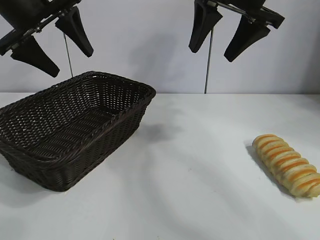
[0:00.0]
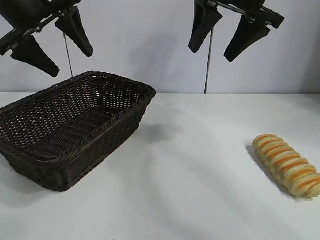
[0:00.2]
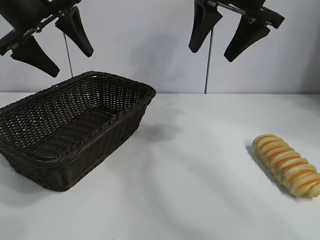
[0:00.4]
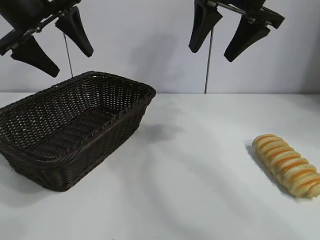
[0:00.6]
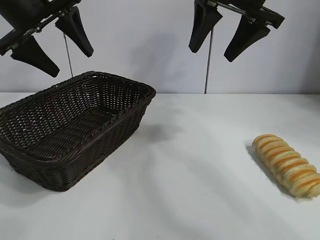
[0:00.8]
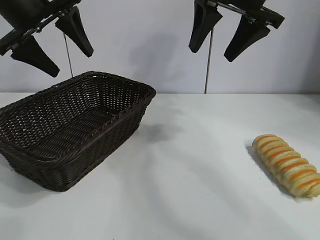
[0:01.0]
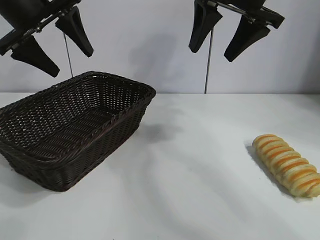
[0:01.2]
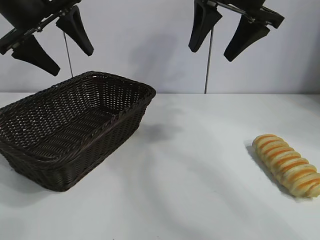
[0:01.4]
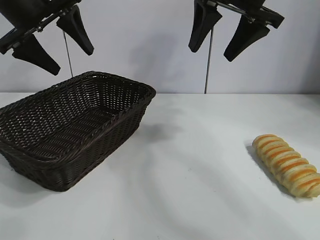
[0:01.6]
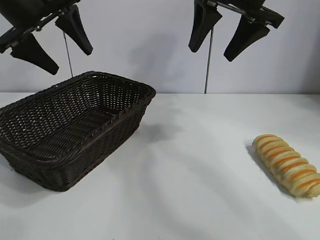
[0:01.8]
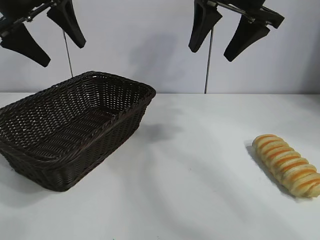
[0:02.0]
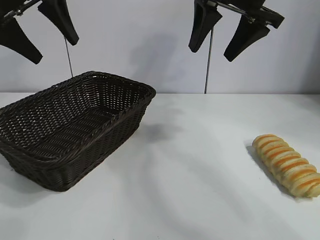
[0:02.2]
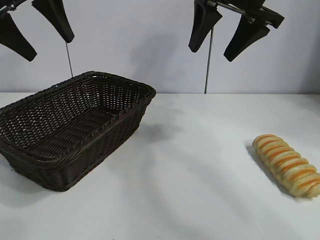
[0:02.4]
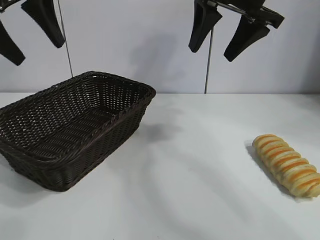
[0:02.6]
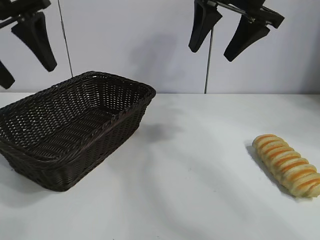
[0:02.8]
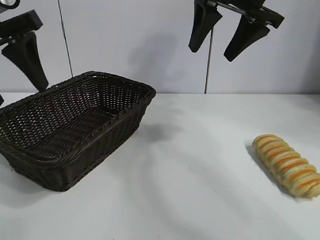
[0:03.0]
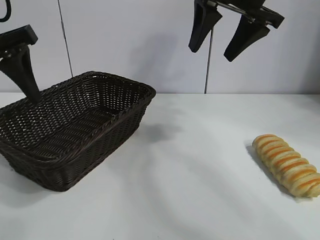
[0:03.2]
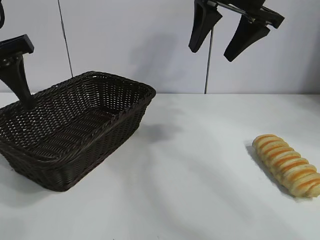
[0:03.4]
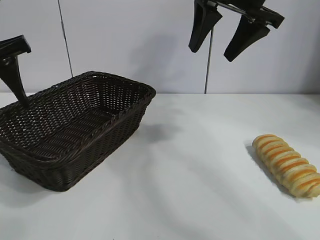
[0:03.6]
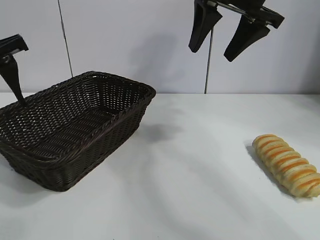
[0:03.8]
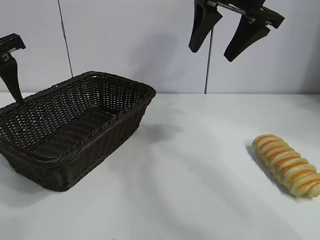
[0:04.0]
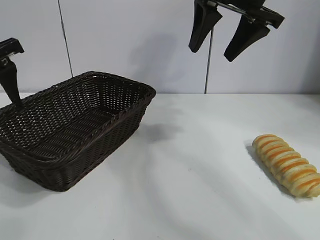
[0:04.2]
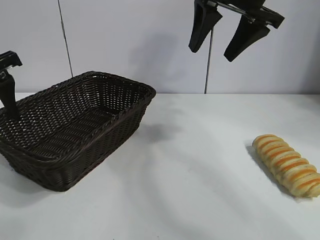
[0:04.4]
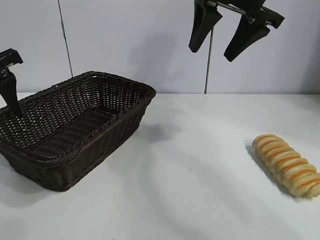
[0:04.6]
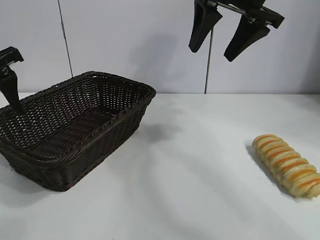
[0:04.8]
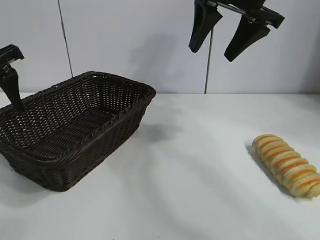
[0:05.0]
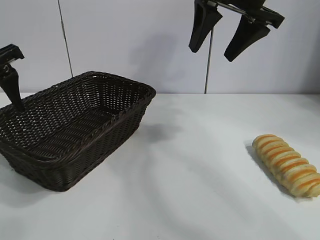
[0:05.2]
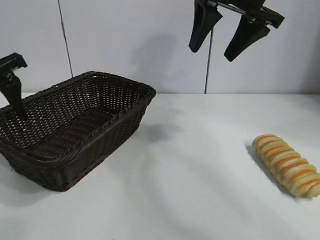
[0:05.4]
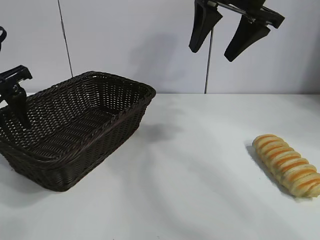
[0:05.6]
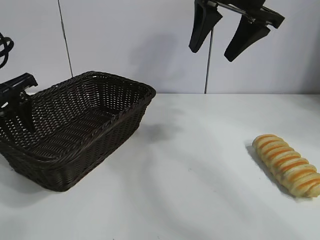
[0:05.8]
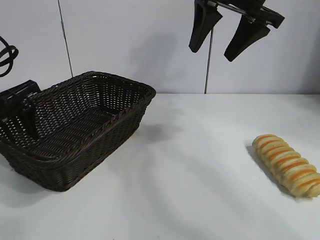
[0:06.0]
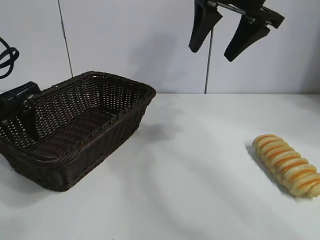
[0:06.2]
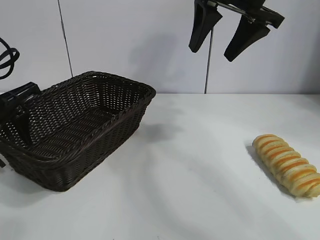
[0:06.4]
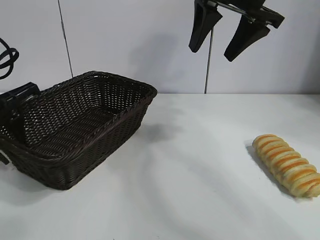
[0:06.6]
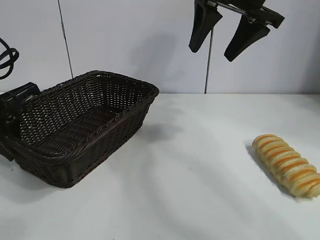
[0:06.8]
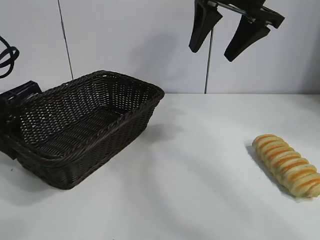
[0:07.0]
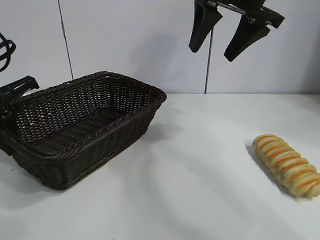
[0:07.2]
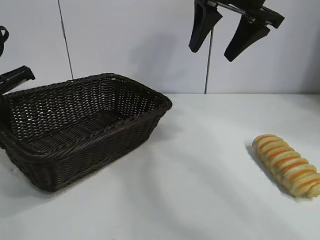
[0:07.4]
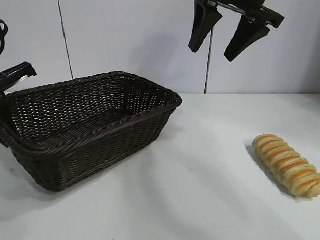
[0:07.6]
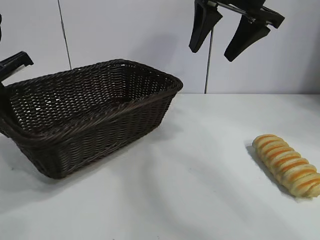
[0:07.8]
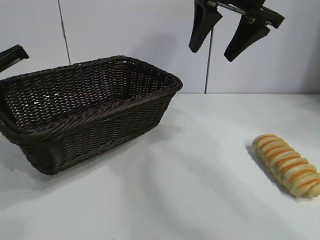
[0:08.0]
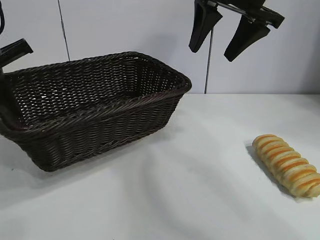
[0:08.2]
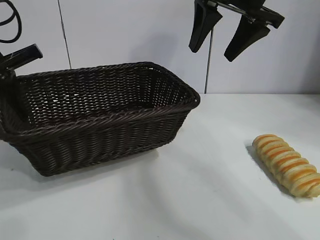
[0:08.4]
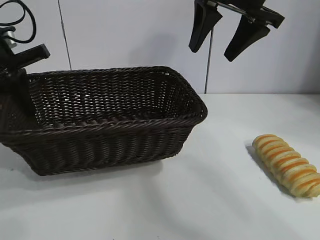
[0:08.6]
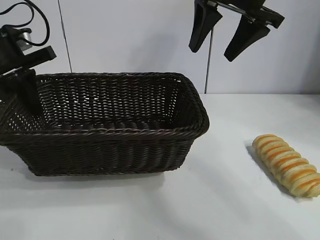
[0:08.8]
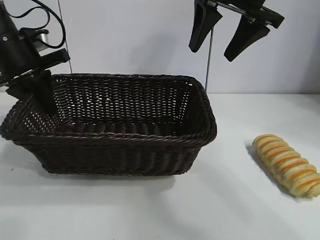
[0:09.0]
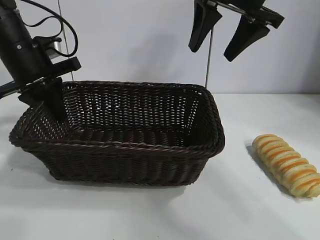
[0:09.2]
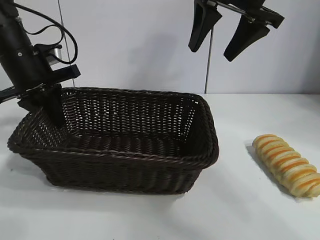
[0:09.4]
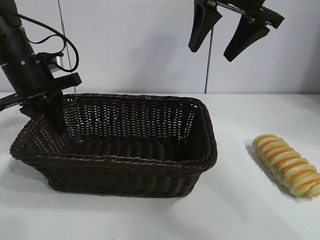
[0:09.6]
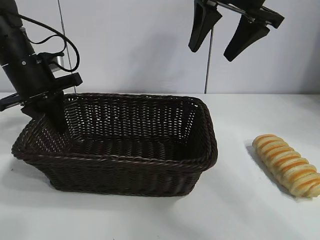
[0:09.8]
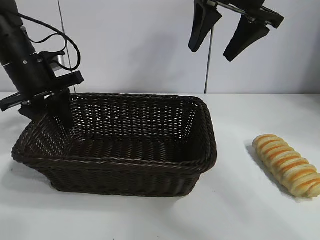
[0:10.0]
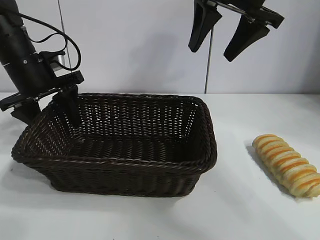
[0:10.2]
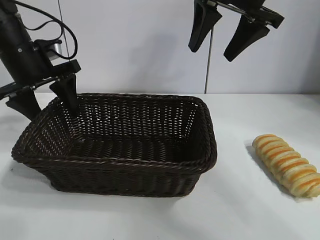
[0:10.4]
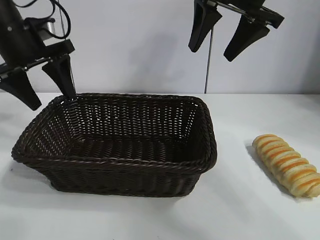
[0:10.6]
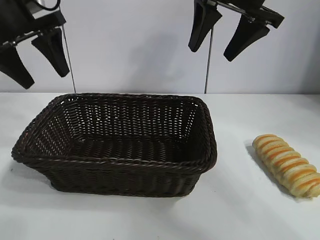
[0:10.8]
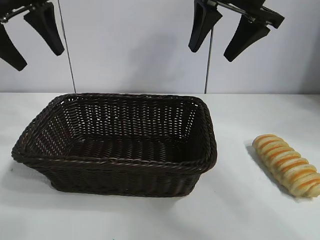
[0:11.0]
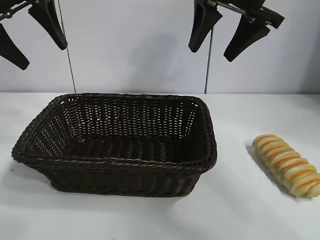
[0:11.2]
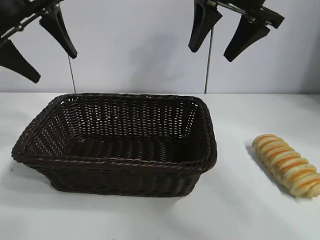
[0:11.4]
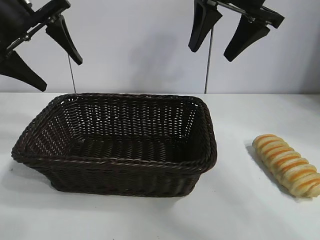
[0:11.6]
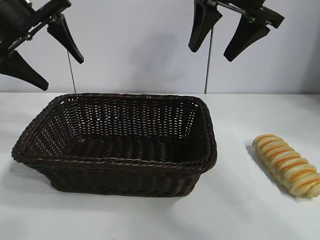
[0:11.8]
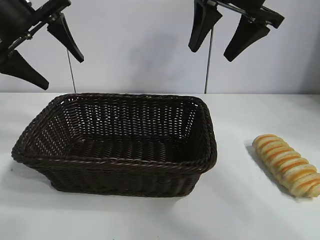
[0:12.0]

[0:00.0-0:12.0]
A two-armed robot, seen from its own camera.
Task of the whole recording: pick up the long bread and put it into the basket.
Step, 0:01.8 to 0:06.8: Grasp the basket with the left gripper.
Step, 0:07.0 to 0:10.2: Place the basket in the center of the table with the left gripper.

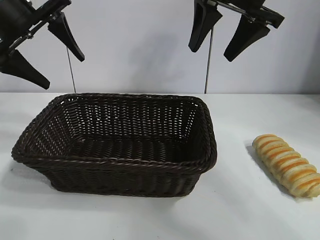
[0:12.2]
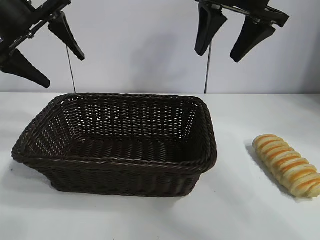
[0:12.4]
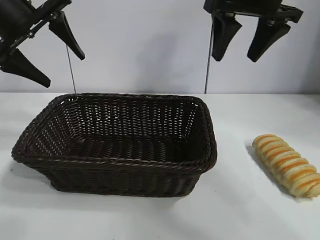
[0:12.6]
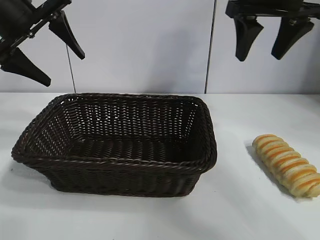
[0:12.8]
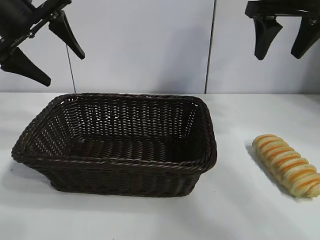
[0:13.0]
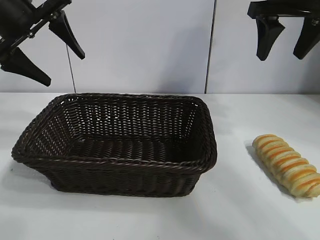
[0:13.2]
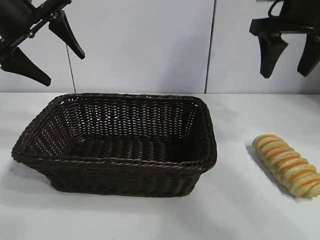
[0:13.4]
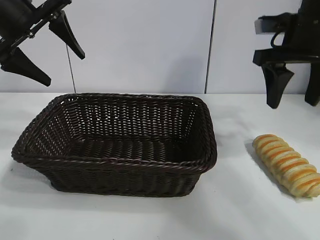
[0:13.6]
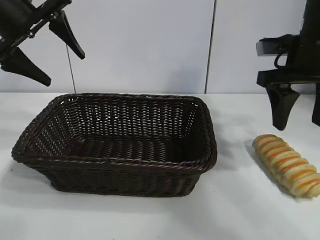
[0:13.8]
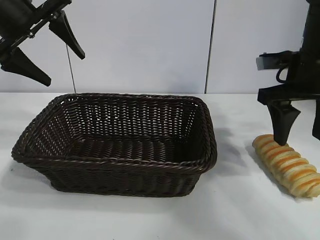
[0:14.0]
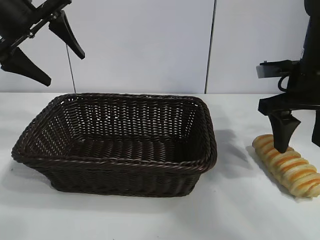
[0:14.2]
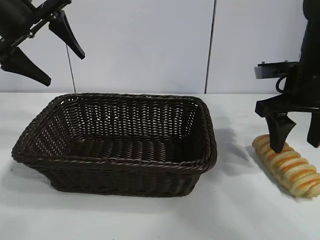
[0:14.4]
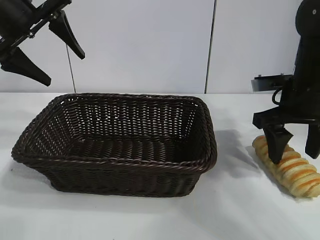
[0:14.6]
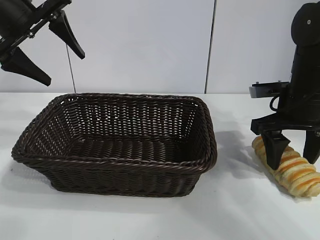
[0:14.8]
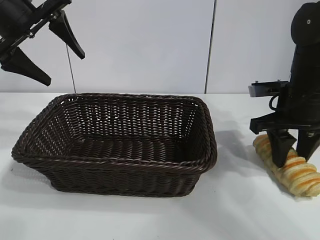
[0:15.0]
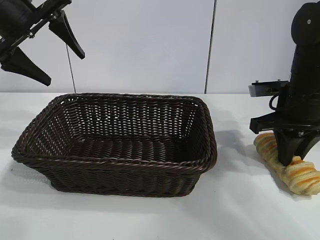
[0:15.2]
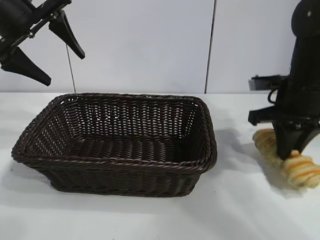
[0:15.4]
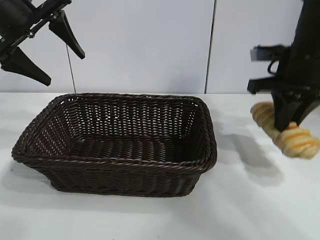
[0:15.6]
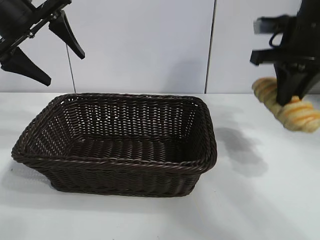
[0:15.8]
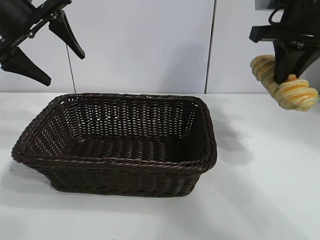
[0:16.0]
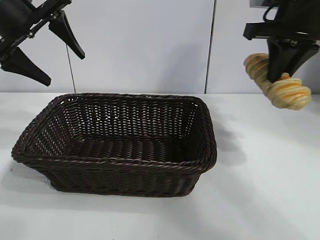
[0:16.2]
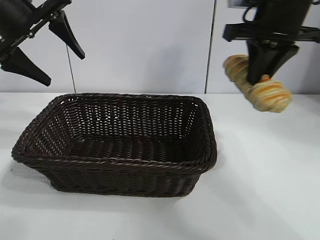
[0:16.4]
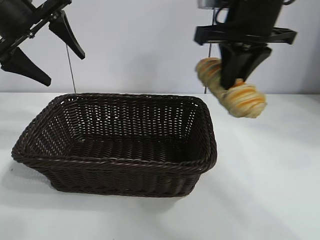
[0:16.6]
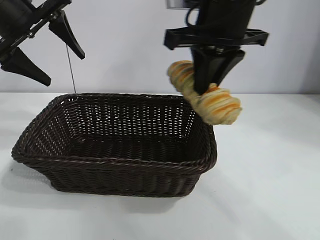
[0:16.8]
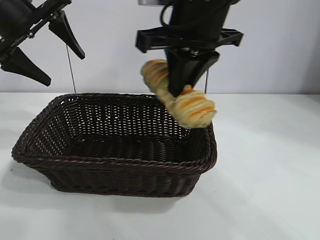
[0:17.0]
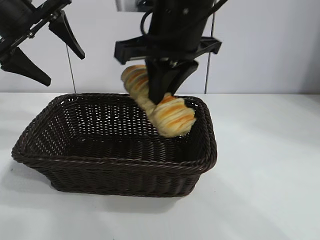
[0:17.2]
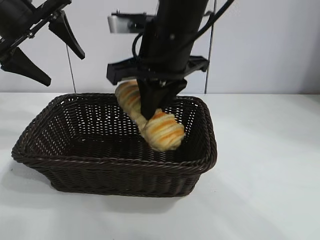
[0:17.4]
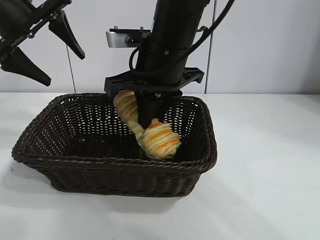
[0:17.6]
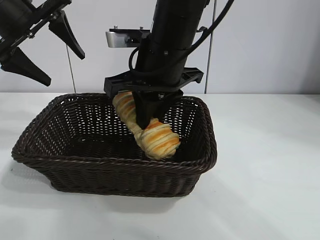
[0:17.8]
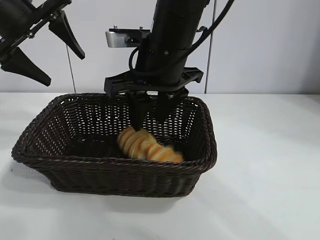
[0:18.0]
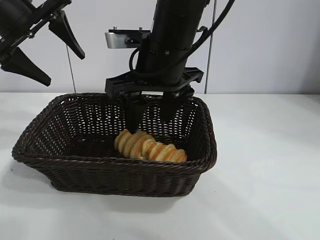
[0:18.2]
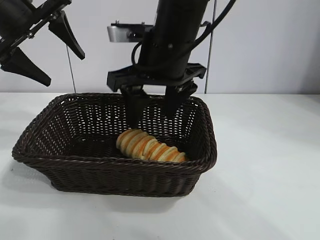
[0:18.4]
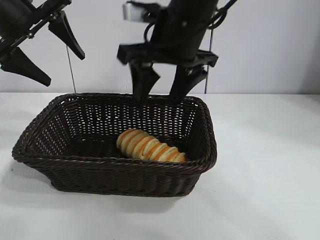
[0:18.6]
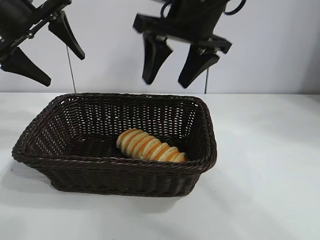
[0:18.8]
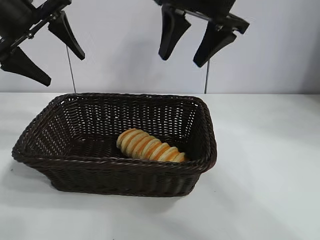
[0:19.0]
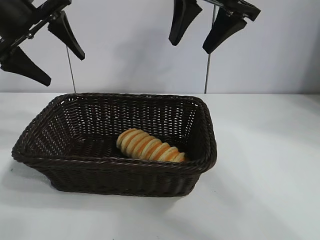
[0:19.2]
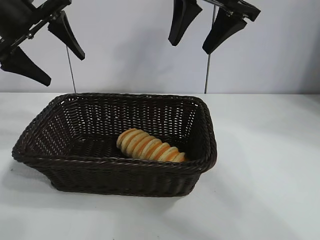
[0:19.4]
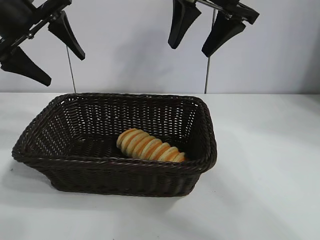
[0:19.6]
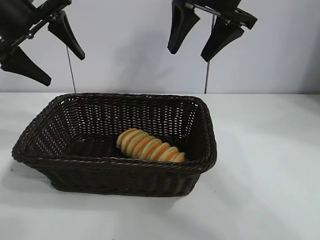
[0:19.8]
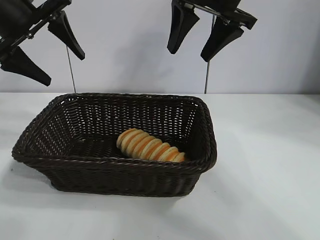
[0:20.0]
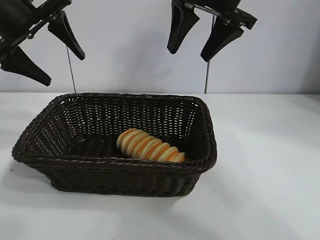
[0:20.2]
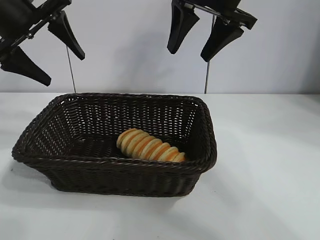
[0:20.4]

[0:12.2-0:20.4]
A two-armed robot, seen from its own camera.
Task of the whole recording: pick up the long bread and put it into the basket.
Step, 0:12.2 to 0:15.2: Grasp the long bread with right gripper.
Step, 0:15.4 to 0:18.2: Place the long bread in the basket with right gripper.

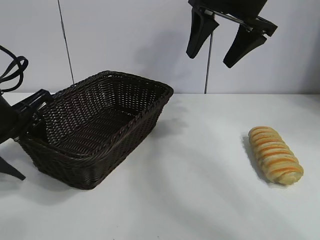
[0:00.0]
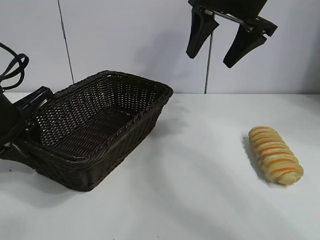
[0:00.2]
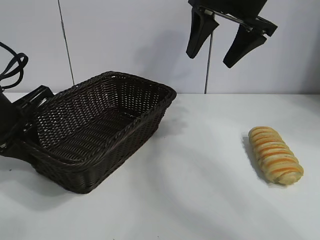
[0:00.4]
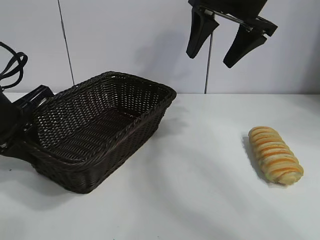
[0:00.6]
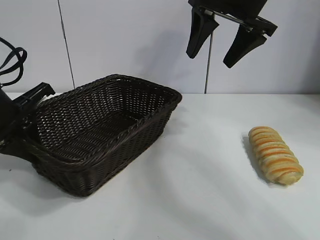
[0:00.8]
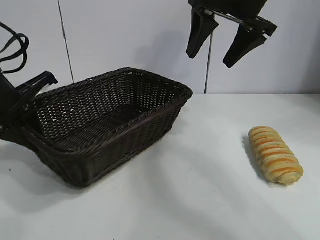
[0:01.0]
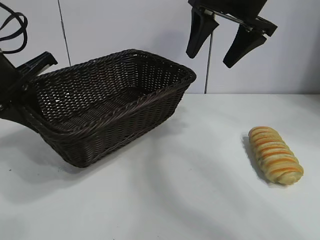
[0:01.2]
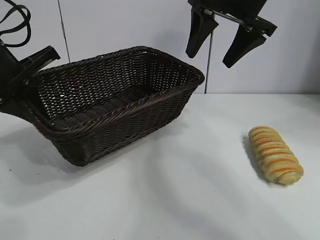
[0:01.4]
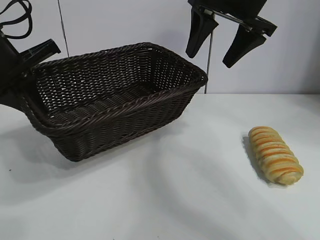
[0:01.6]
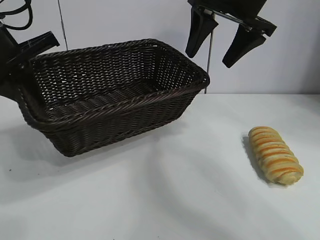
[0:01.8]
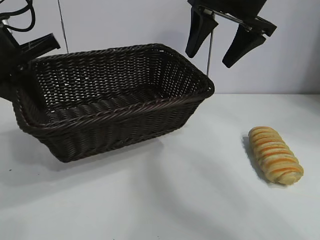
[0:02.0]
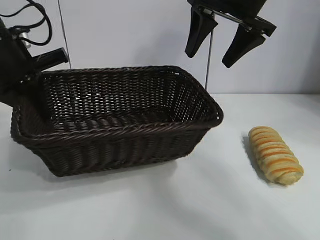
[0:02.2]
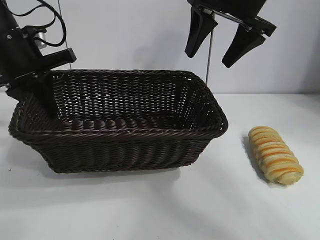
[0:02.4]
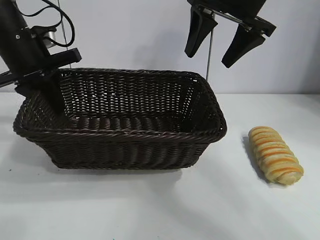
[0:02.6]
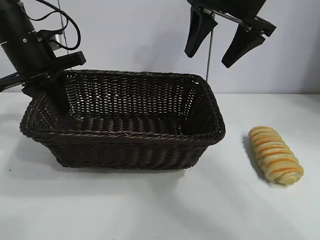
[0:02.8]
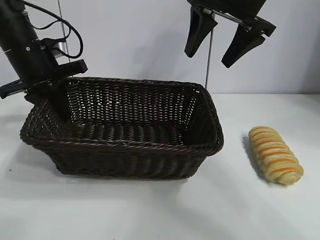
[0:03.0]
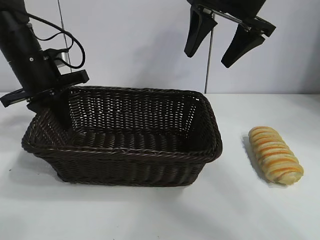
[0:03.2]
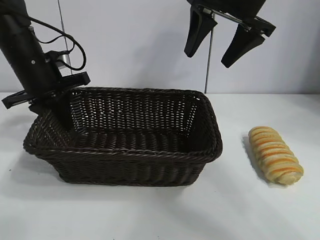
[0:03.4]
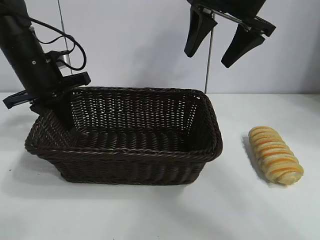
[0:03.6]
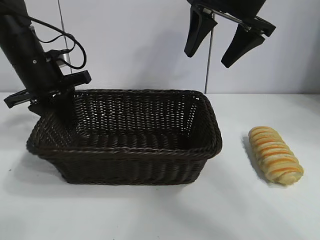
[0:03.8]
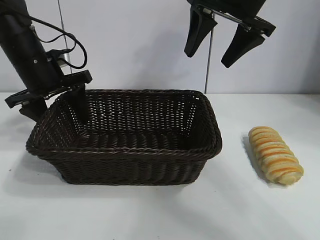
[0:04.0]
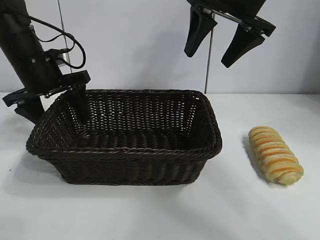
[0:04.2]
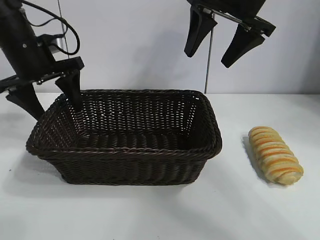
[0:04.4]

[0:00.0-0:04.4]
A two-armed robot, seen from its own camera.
Task of the whole recording: pick up the long bread and put it into the basket.
Step, 0:00.6 to 0:04.0: Place the basket in the center of the table with the left gripper.
